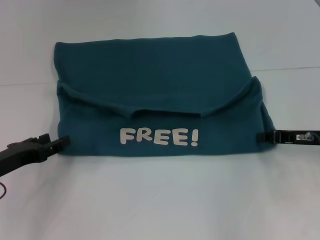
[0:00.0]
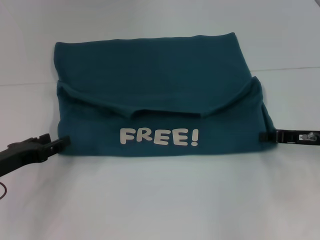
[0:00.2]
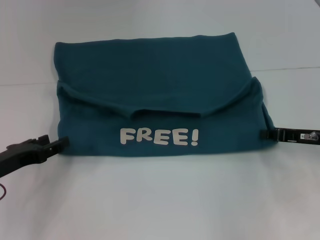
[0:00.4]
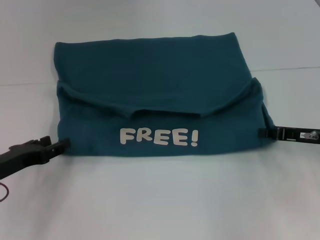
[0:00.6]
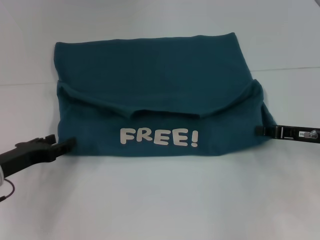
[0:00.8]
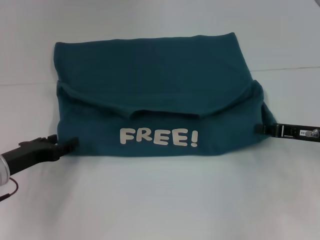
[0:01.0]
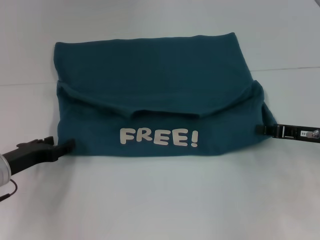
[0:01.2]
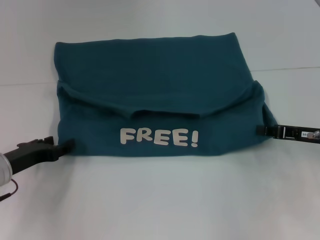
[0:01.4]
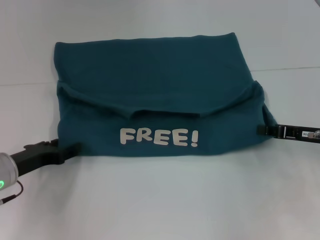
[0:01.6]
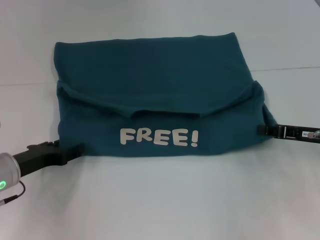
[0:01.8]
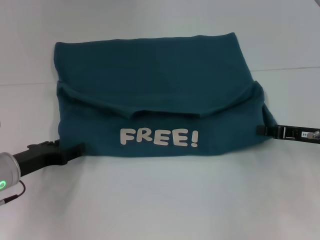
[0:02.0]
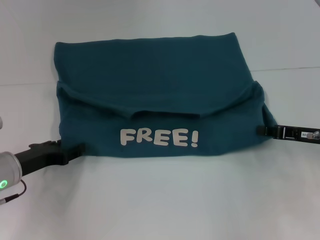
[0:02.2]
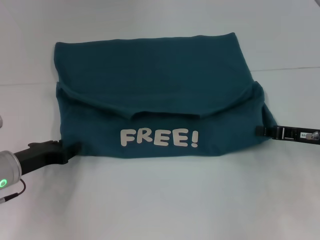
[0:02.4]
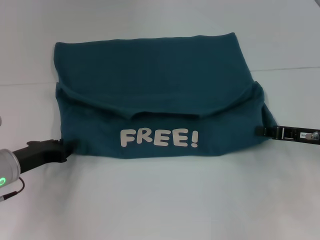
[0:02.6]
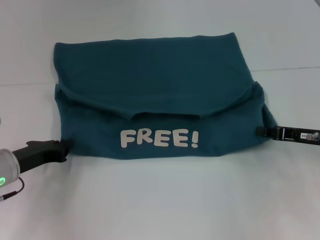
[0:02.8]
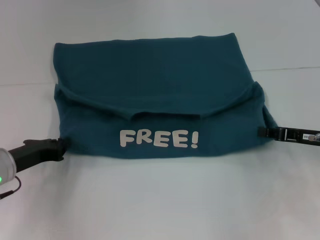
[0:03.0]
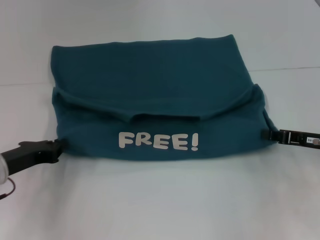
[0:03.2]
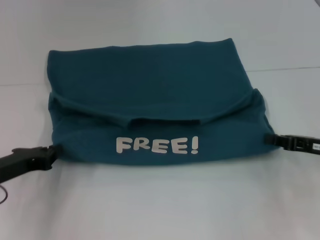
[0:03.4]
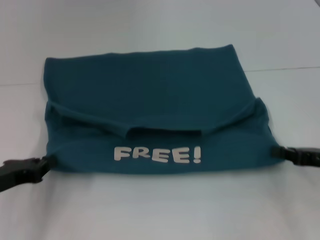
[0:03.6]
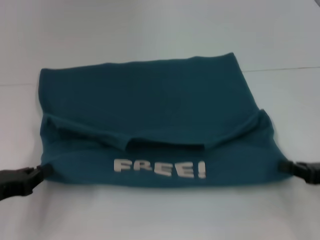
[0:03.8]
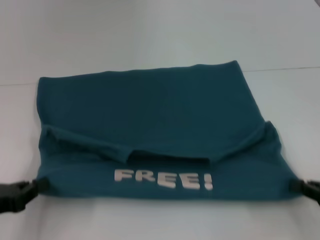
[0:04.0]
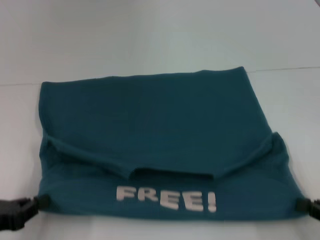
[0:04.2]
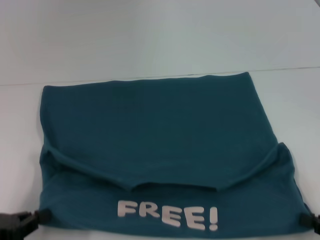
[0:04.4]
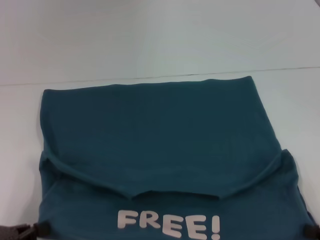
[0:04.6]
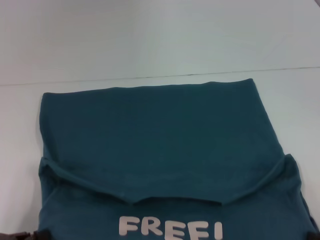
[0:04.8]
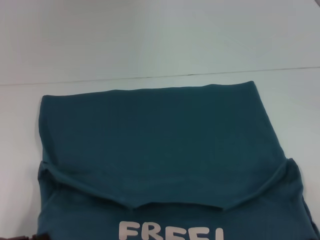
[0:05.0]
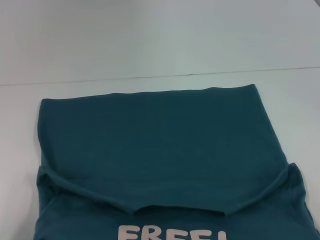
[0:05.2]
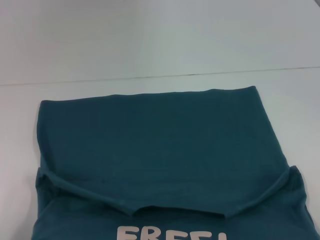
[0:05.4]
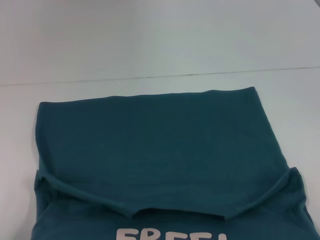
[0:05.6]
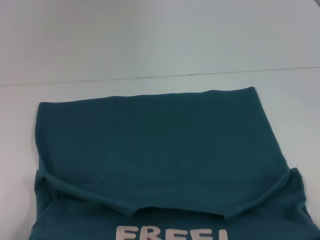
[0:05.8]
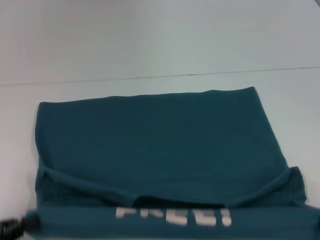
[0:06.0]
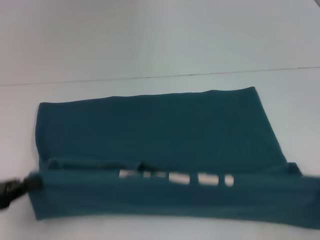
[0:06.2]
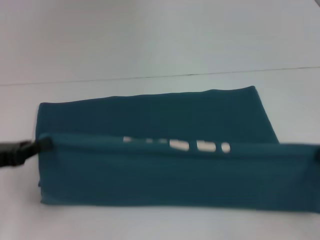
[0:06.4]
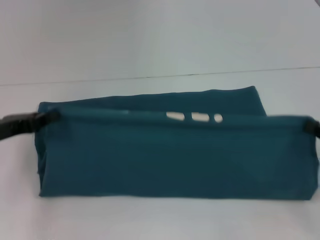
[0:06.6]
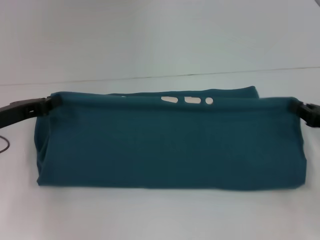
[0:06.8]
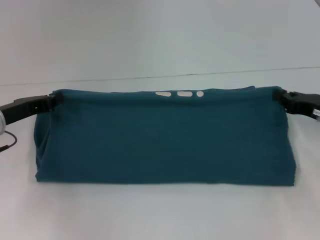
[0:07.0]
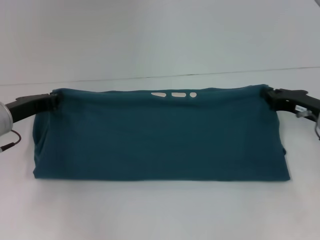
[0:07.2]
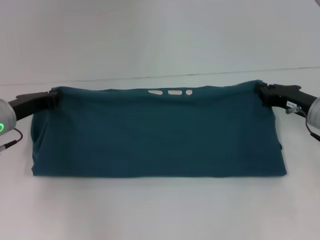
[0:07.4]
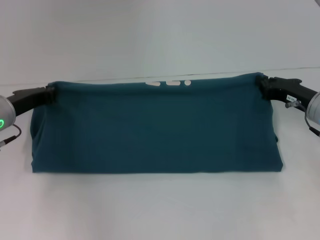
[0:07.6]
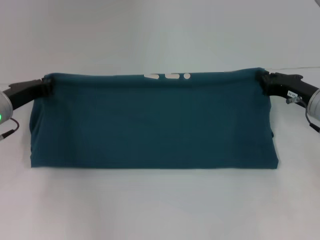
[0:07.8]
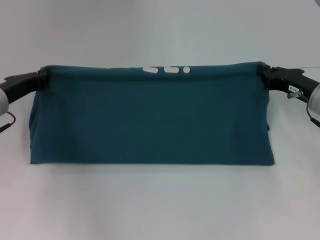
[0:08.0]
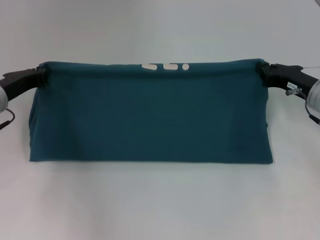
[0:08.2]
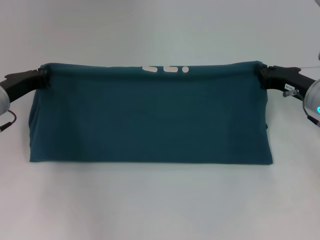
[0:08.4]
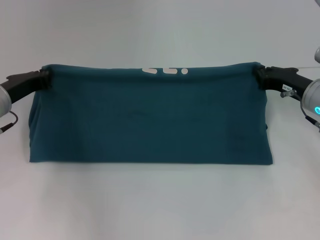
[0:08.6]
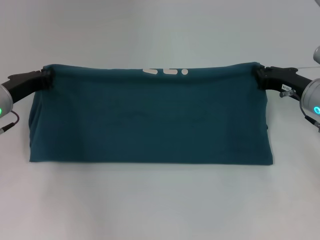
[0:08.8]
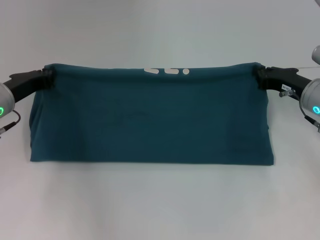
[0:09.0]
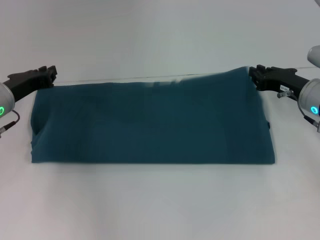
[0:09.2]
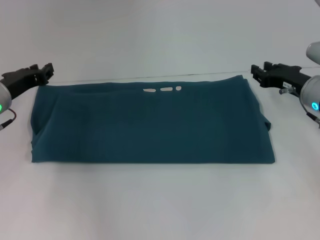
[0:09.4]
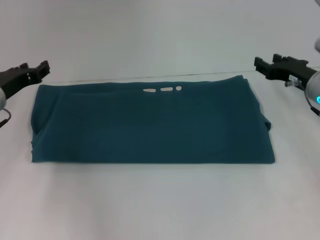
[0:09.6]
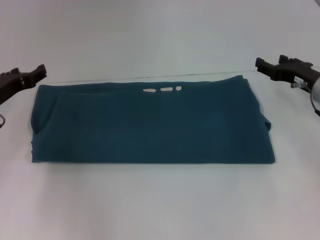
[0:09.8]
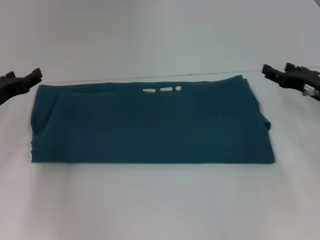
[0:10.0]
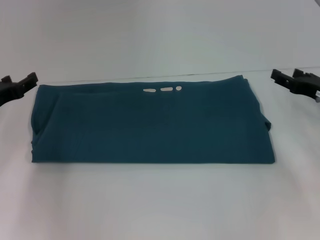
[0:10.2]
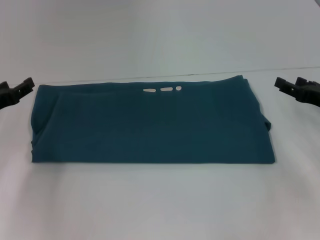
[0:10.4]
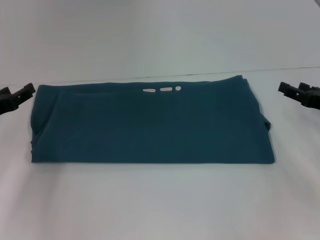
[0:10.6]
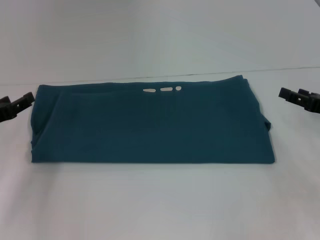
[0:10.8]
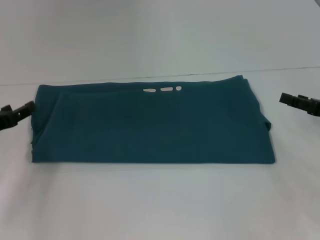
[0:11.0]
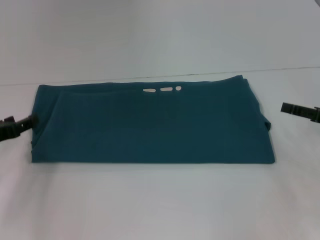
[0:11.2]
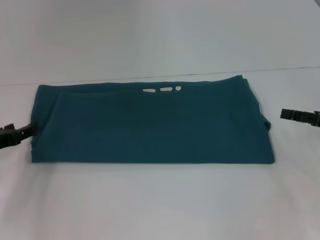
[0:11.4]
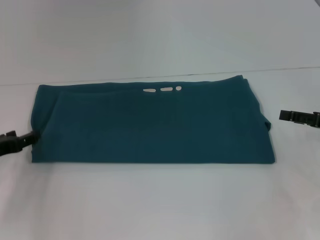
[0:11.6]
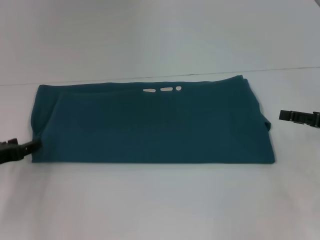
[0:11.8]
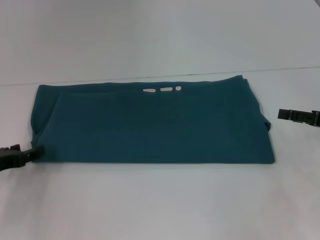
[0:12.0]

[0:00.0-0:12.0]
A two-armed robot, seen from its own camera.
Step, 0:00.0 to 0:05.2: Pull the clothes with your left hand.
Step, 0:00.0 to 0:05.2: Pull the clothes with your right hand.
Step, 0:05.4 to 0:09.6: Fold the clothes to the right.
0:00.0 to 0:01.6: The grippers stay close to where they were, moving slightly.
0:01.6 to 0:03.0: The left gripper closes up.
0:03.0 to 0:04.4: The left gripper goes roughly 15 cm backward and to the left; the right gripper moves backward, roughly 15 cm.
0:04.4 to 0:06.0: The grippers make only small movements.
0:06.0 to 0:07.6: The grippers both shift forward by approximately 25 cm.
0:07.6 to 0:09.0: The grippers stay close to where they were, moving slightly.
0:09.0 to 0:10.4: The left gripper moves to the left, about 5 cm, and opens up, while the right gripper moves to the right, about 5 cm, and opens.
0:10.4 to 0:12.0: The left gripper ends up approximately 5 cm from where it was.

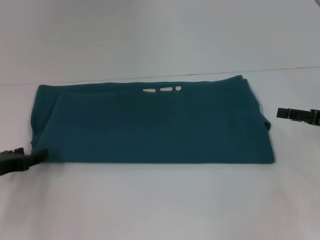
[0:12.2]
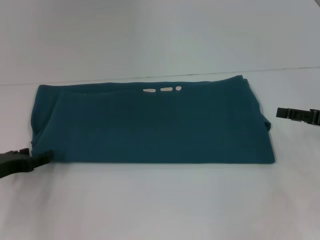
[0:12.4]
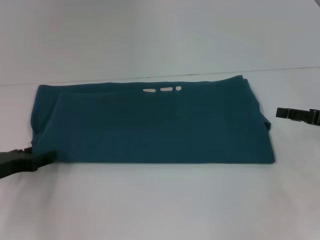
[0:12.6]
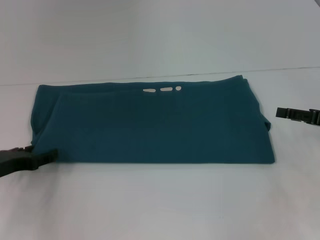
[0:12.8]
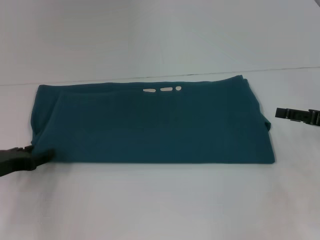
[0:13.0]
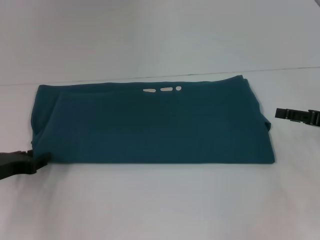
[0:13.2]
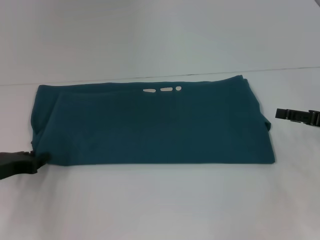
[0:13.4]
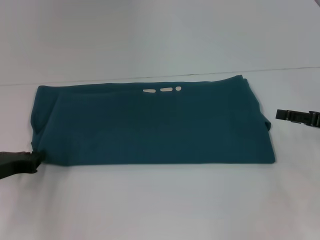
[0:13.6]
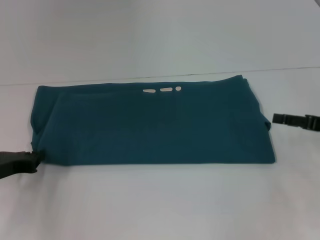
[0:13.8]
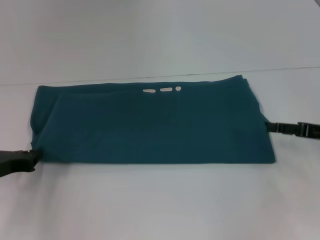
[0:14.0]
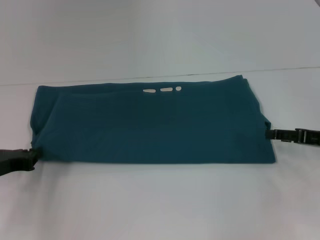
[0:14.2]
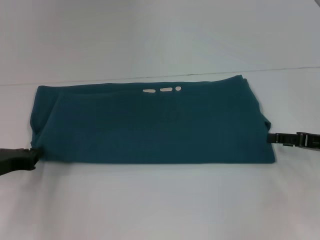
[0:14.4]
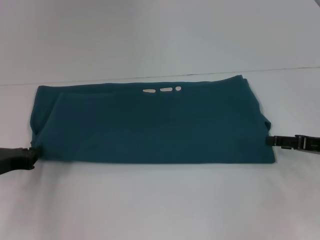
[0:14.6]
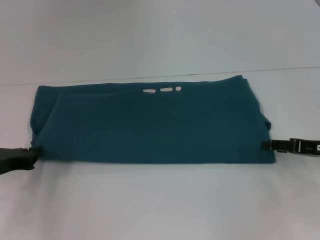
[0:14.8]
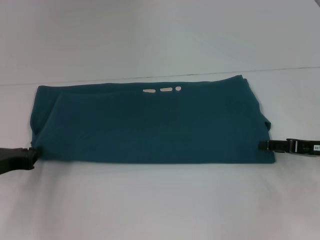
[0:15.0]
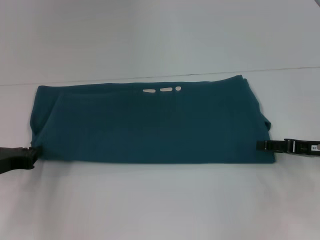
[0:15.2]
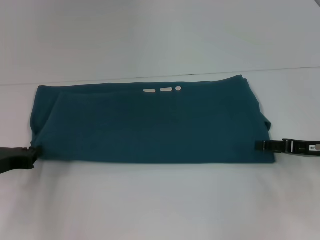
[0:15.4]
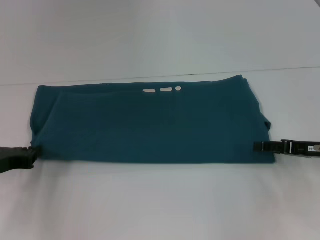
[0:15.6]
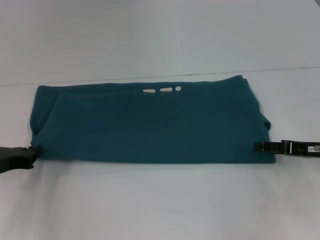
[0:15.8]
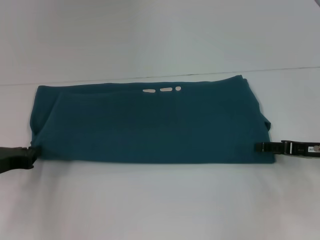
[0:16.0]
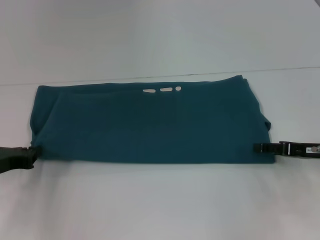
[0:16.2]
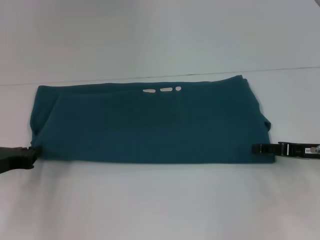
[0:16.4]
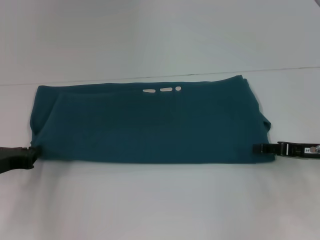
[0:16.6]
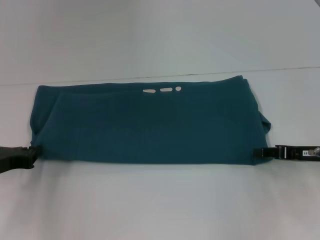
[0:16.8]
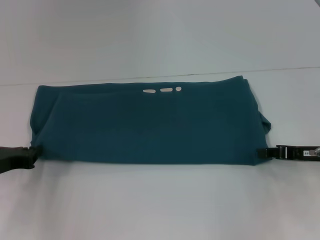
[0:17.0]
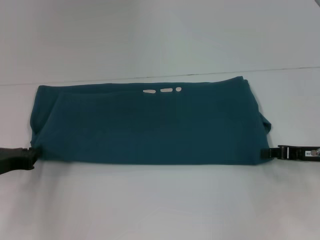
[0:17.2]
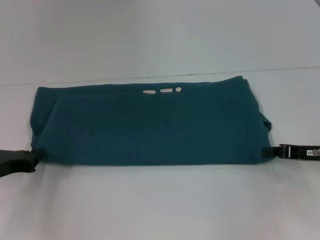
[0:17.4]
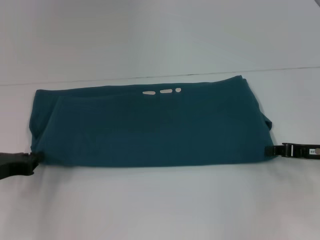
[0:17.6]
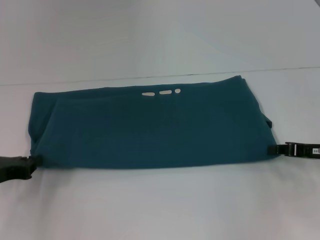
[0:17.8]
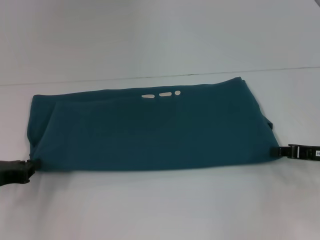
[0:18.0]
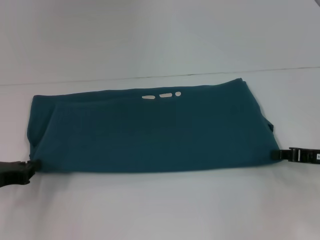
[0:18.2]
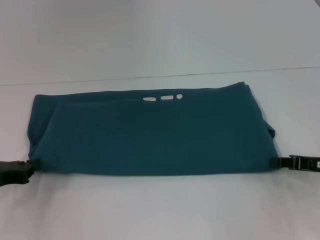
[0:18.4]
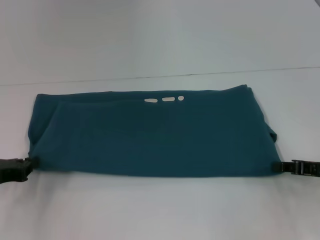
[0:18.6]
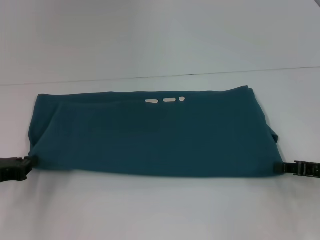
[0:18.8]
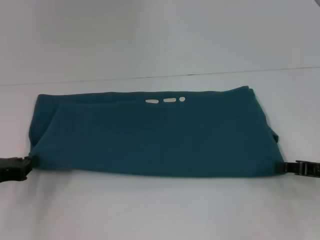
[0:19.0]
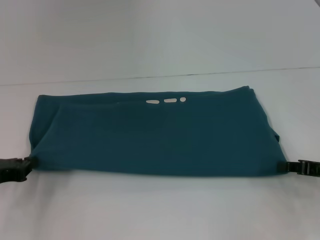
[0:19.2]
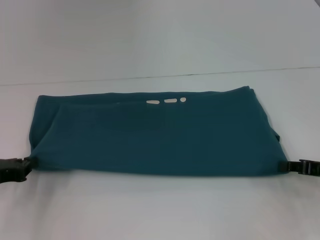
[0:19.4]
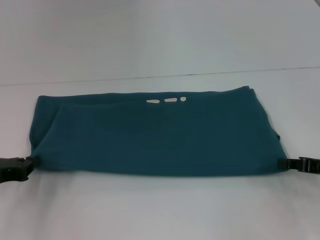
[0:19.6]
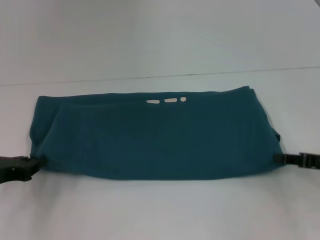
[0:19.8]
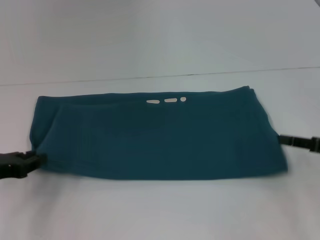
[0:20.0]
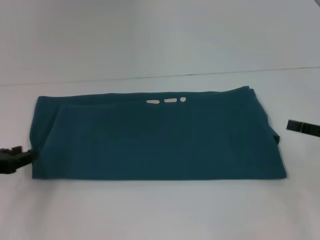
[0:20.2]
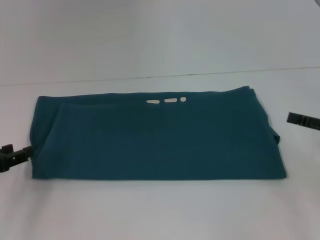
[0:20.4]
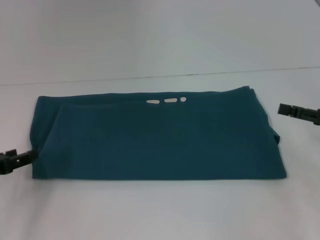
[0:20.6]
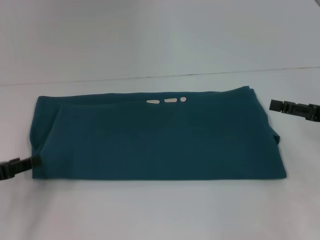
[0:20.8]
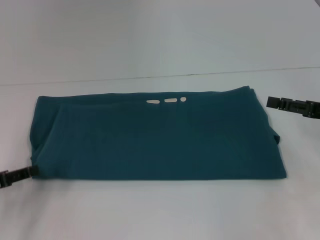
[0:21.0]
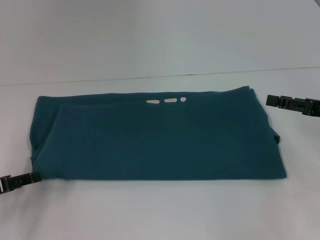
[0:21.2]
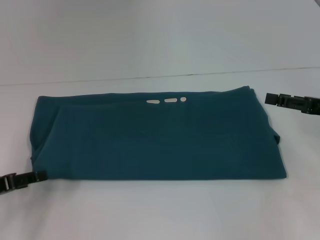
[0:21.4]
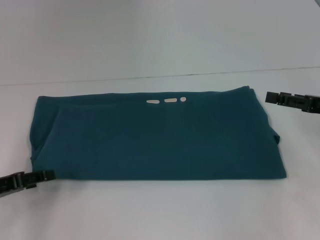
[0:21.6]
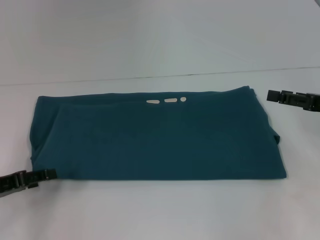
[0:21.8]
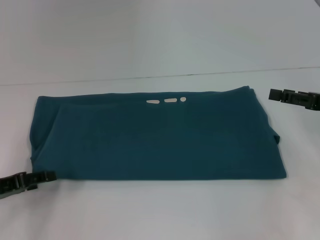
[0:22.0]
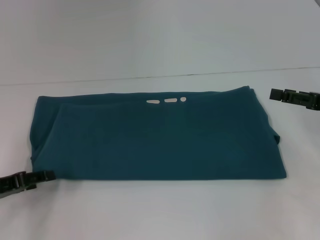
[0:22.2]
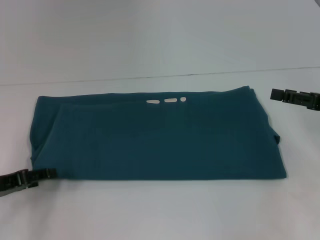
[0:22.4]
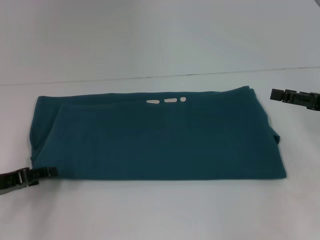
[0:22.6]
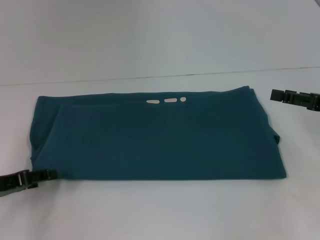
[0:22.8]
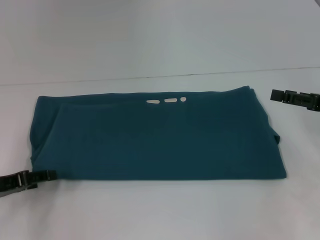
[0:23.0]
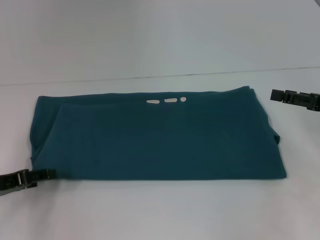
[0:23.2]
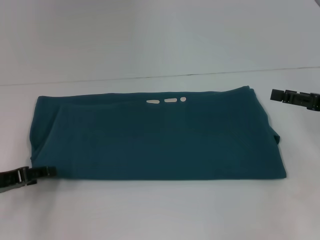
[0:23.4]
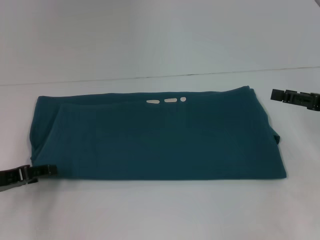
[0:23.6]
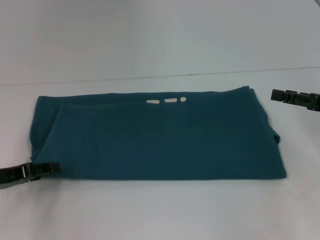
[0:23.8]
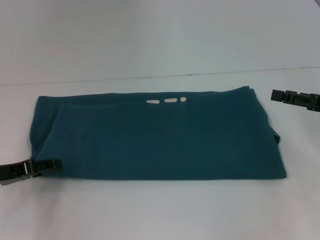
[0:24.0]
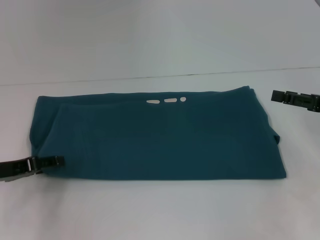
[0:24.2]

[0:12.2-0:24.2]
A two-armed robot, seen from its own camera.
0:12.2 to 0:13.8: The left gripper closes its fingers.
0:13.8 to 0:15.2: The grippers make only small movements.
0:15.2 to 0:16.6: Neither gripper changes place.
0:16.6 to 0:18.2: The right gripper closes.
0:18.2 to 0:19.8: The grippers stay close to where they were, moving slightly.
0:19.8 to 0:21.2: The left gripper opens up. The right gripper is displaced upward by approximately 5 cm, and opens up.
0:21.2 to 0:24.2: There are only small adjustments of the grippers.
